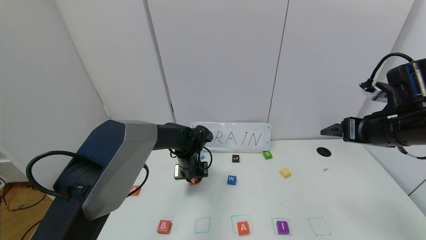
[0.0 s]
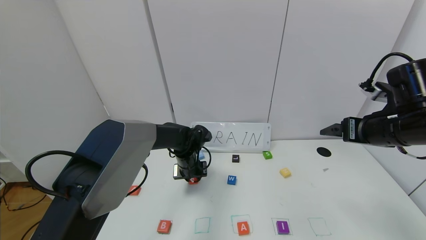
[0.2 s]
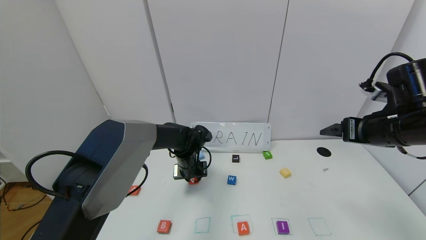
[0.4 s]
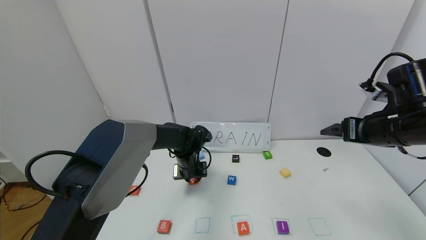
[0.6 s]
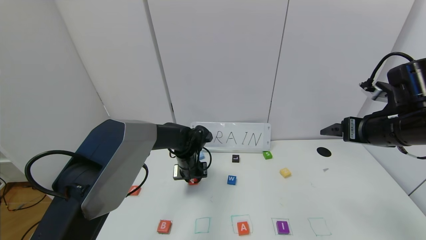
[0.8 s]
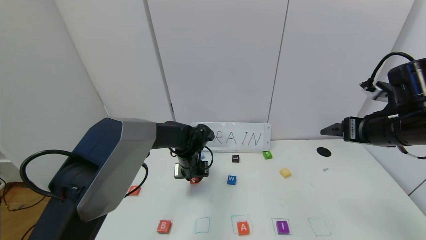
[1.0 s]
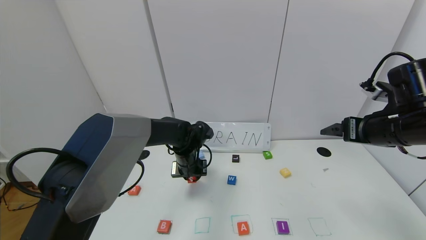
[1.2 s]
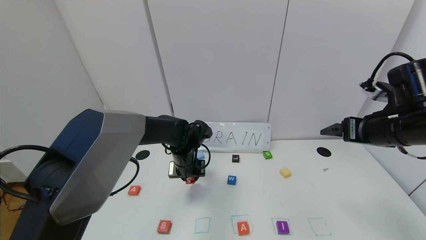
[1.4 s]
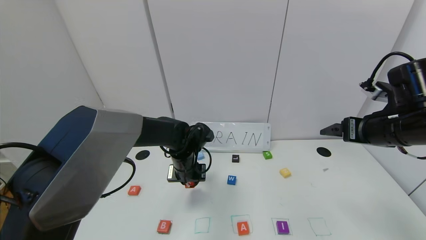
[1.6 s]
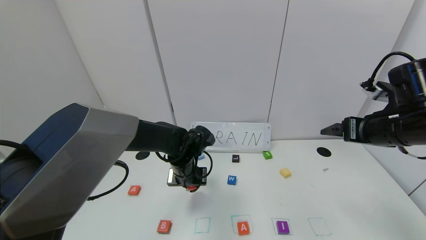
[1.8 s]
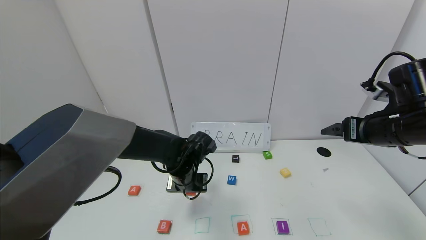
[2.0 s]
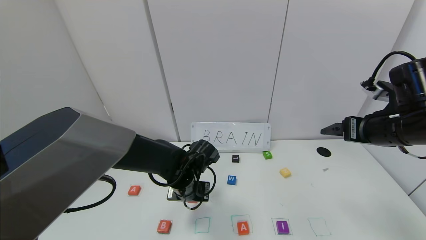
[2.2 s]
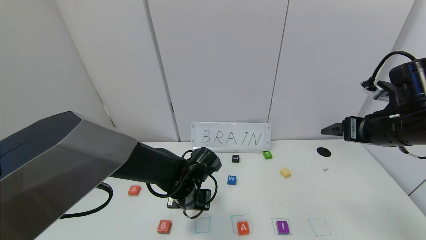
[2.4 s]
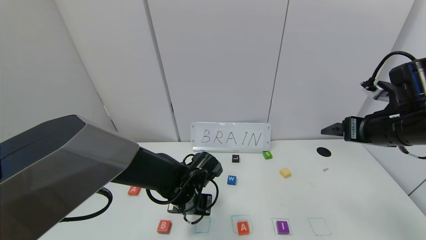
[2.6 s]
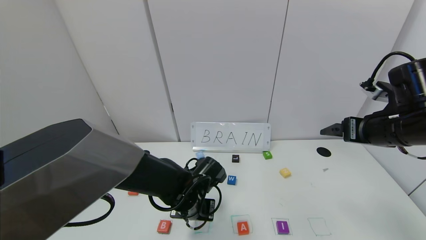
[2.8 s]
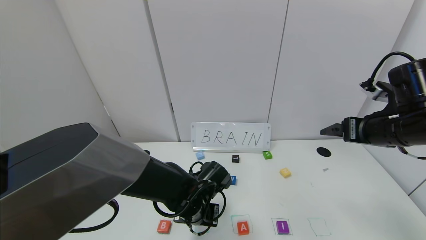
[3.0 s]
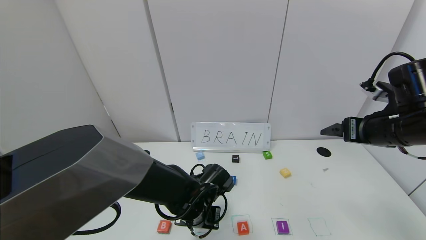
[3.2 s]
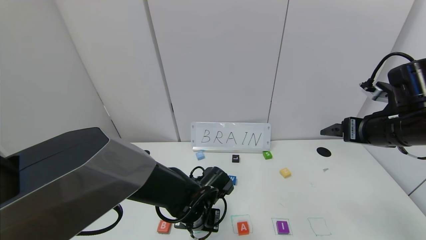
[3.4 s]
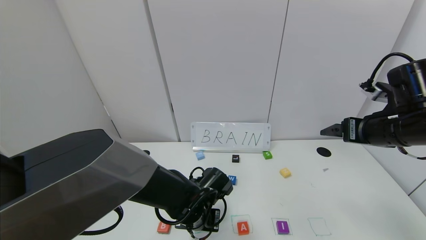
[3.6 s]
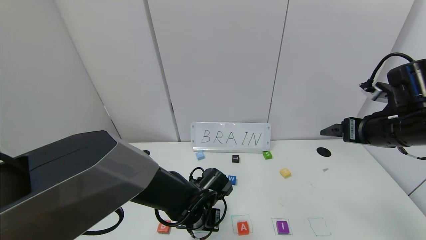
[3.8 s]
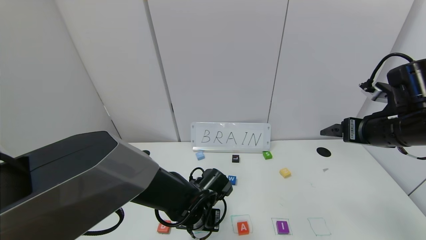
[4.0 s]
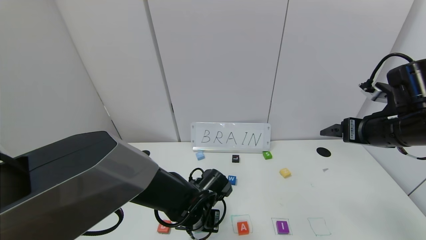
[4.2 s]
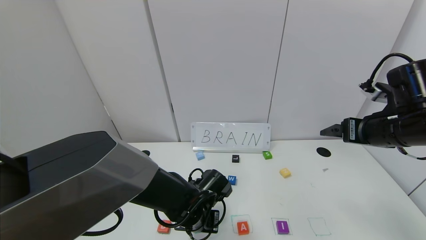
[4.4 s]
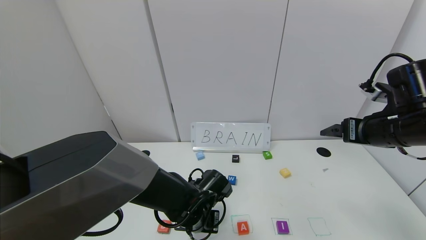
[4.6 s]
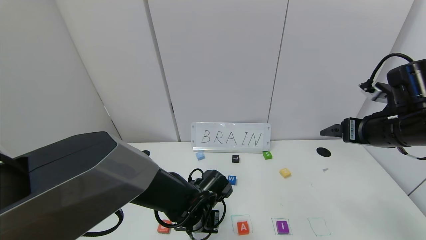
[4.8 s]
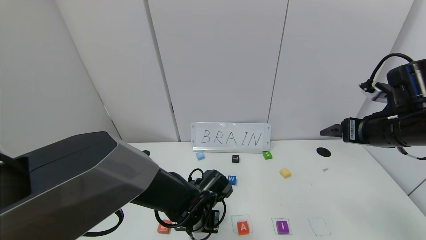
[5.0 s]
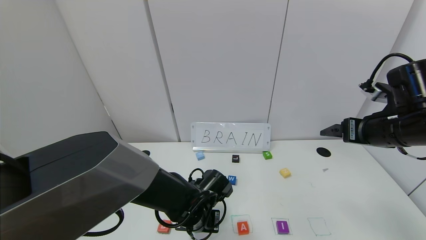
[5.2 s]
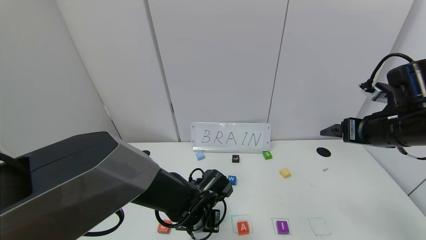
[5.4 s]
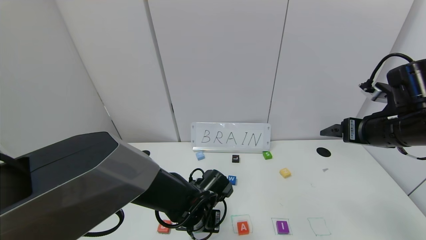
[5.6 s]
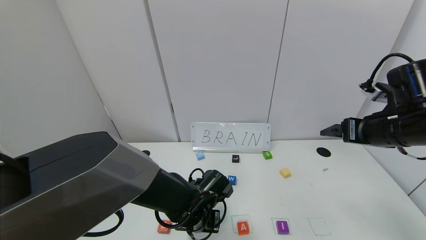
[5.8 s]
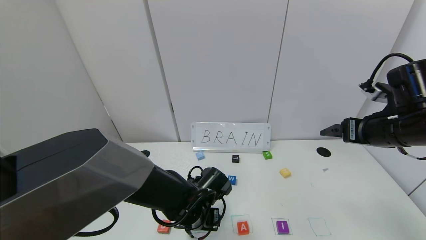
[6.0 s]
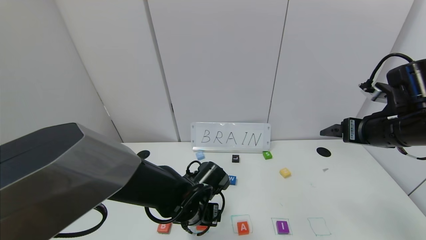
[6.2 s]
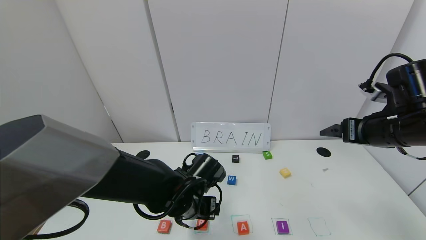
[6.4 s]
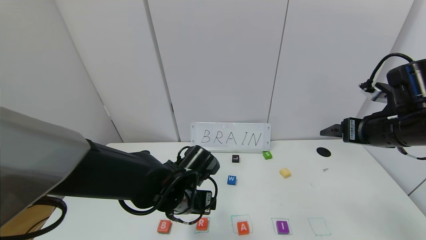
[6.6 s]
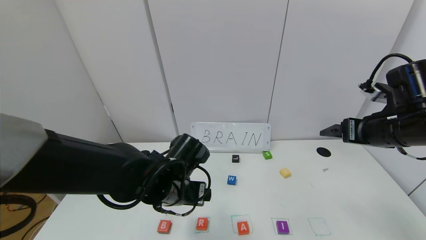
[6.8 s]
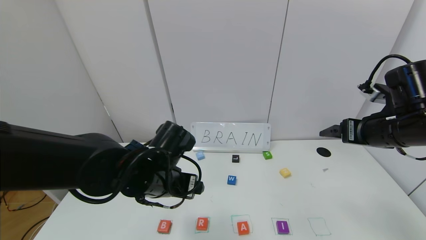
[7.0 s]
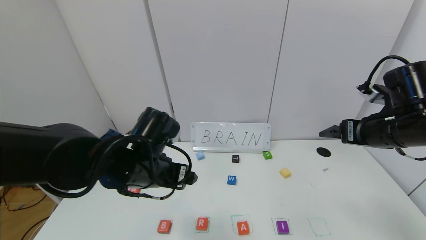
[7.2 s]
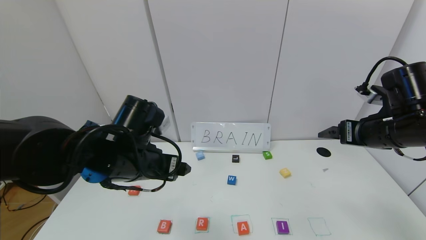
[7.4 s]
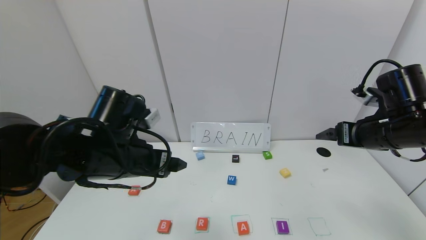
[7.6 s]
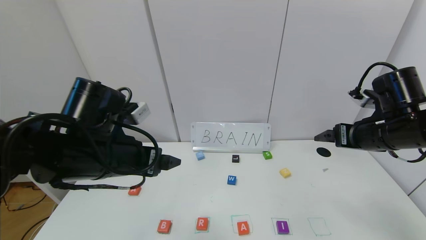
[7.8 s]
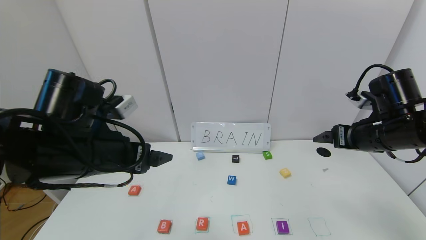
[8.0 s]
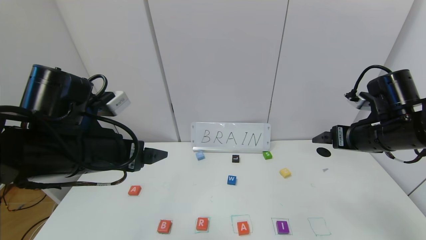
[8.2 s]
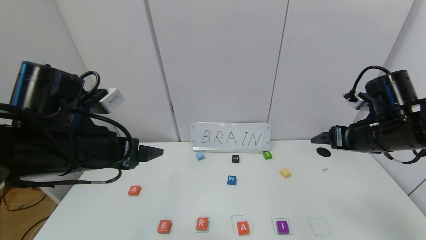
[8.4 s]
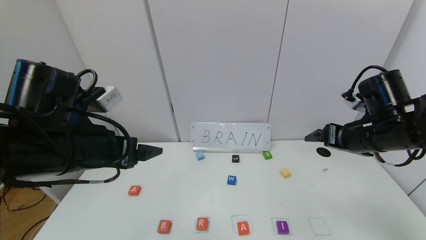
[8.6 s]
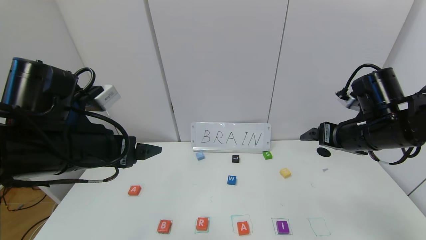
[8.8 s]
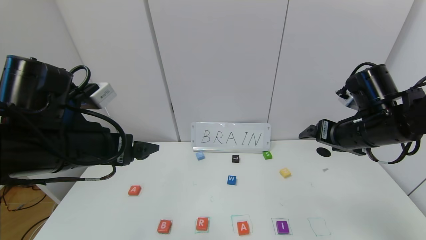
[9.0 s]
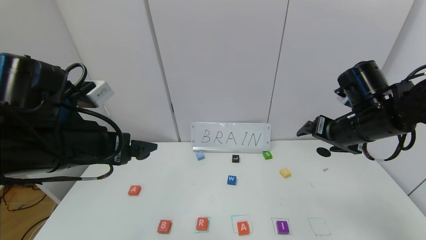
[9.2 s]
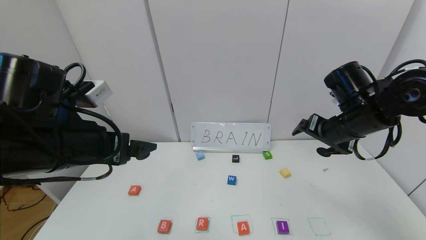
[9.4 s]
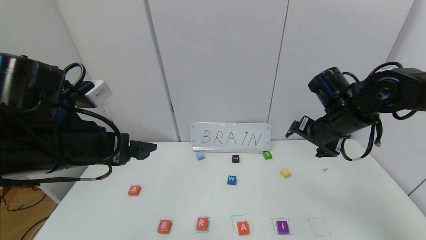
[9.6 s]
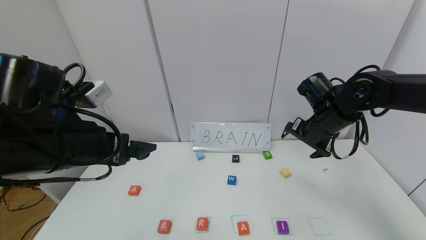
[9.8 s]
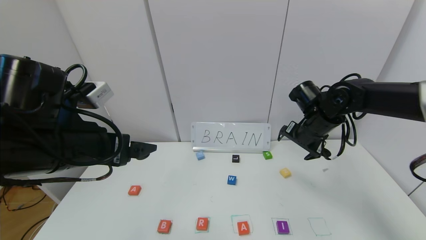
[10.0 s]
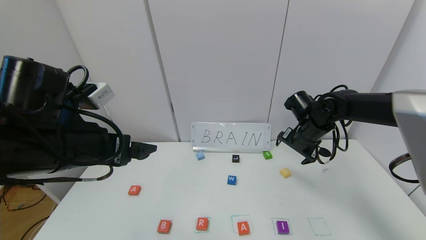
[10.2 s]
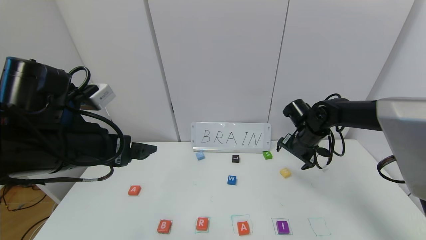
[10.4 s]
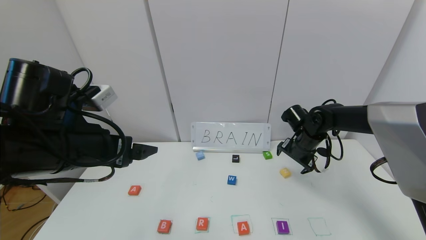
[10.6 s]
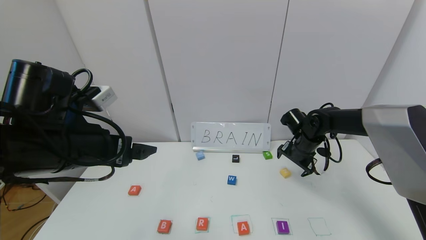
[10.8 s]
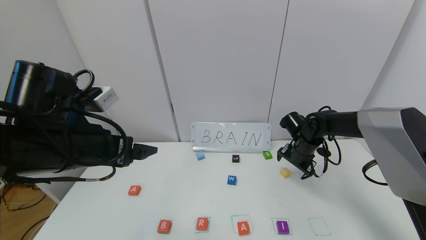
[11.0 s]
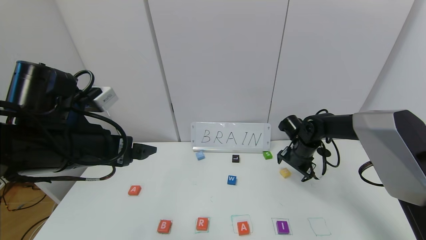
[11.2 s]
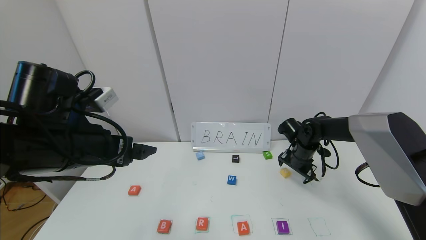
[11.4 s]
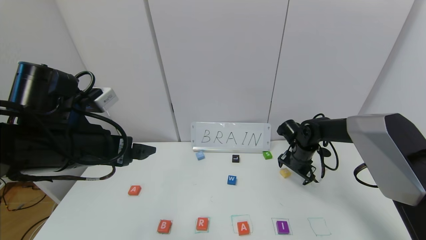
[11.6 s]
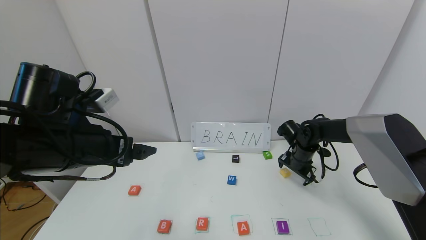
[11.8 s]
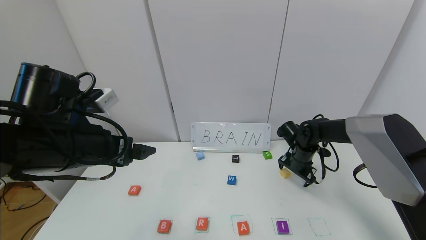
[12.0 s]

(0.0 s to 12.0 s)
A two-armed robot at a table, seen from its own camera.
Task of the whole recording: use the gripper to find blocks with the letters b, a, a, and i on the table and arrange them into BAAI, then find r and N and turn the arranged baai into brian.
Step, 0.0 s - 5.8 s: Place the block R in the second location.
0.0 s - 1.6 s: The left gripper shifts by some 5 cm.
1.6 s - 3.0 s: The left gripper travels backward by about 10 cm.
3.0 s - 4.4 s: The grippers stay close to where they were, moving slightly.
4.4 s - 6.0 s: The left gripper opens up.
6.0 s - 7.6 s: The left gripper is displaced upward and to the left by some 20 cm.
7.6 s - 9.0 s: The left gripper ends up roughly 5 cm from where it was.
9.0 s - 10.4 s: The right gripper moves forward and downward, approximately 15 cm.
10.4 s - 12.0 s: The right gripper heads downward, covering roughly 5 cm.

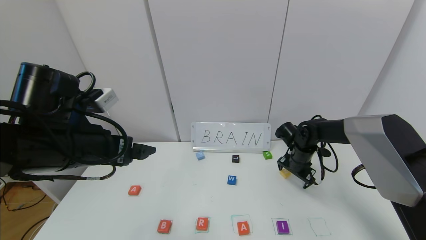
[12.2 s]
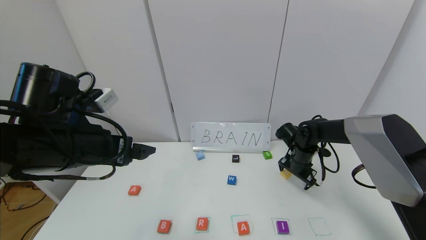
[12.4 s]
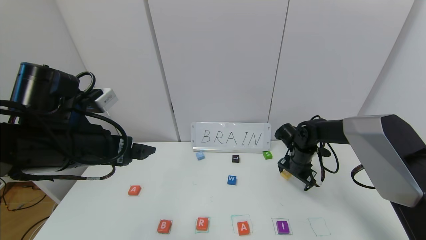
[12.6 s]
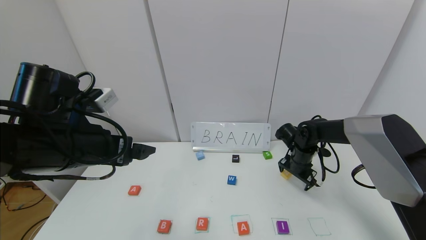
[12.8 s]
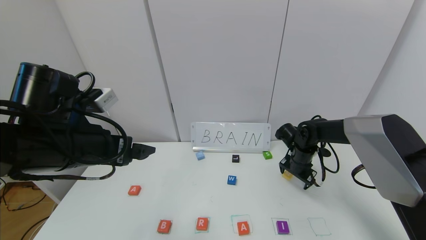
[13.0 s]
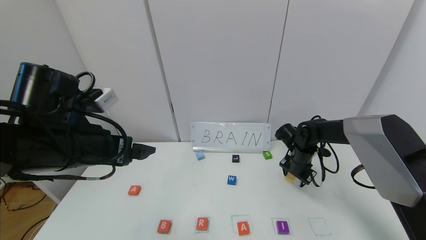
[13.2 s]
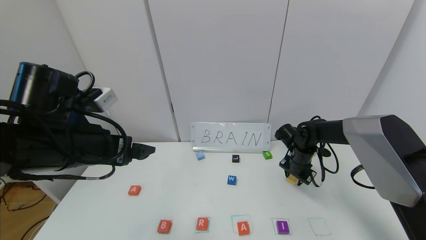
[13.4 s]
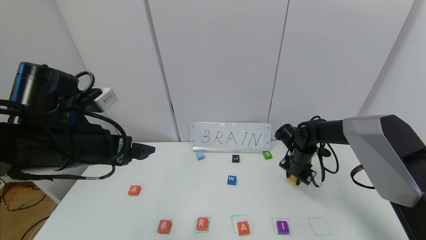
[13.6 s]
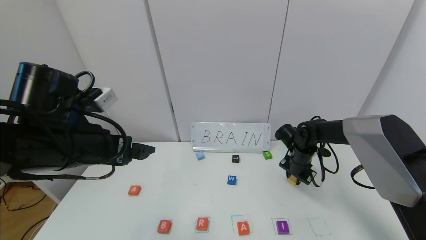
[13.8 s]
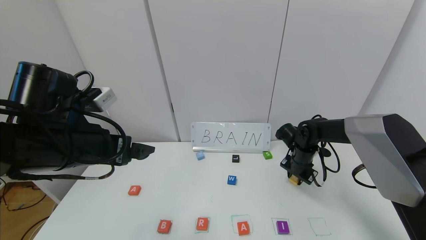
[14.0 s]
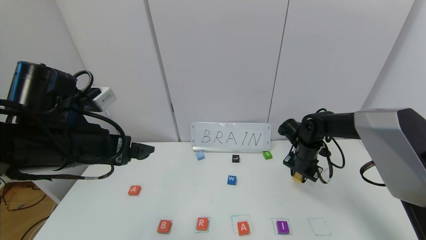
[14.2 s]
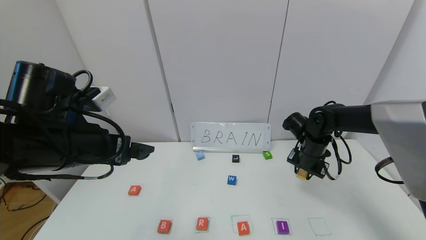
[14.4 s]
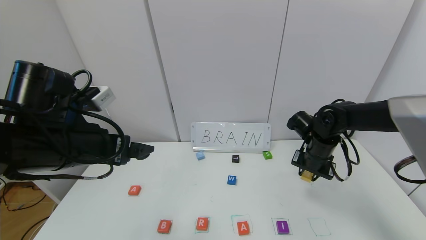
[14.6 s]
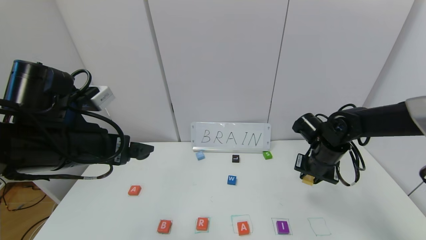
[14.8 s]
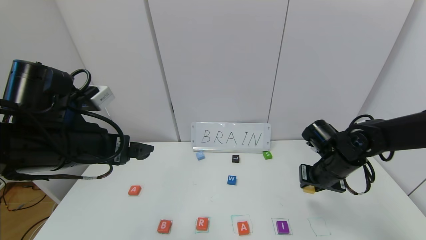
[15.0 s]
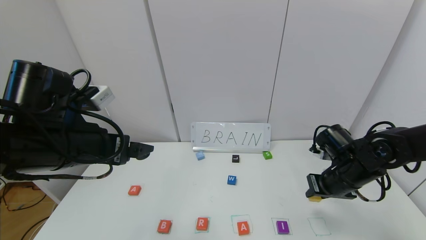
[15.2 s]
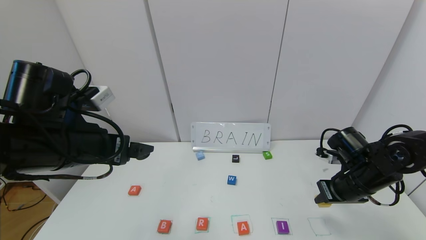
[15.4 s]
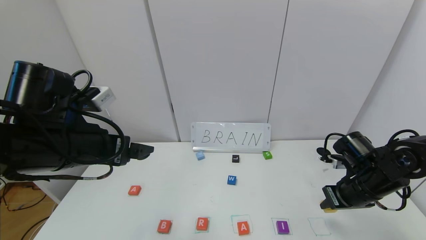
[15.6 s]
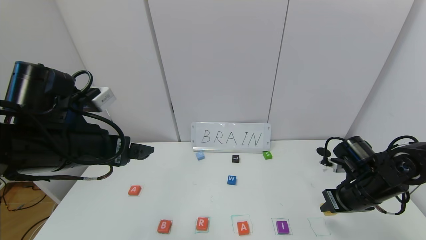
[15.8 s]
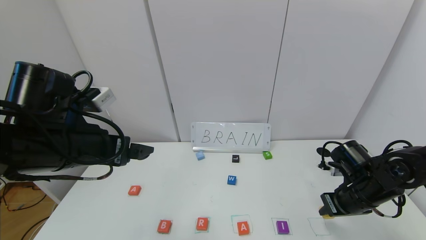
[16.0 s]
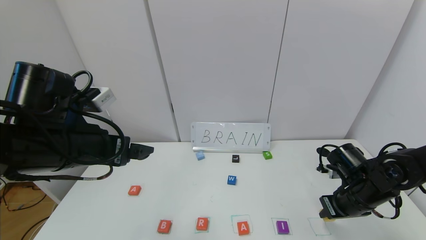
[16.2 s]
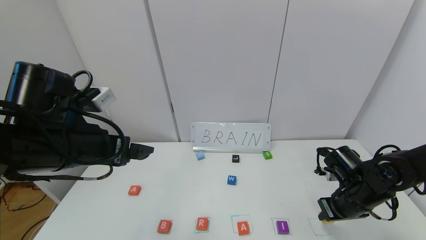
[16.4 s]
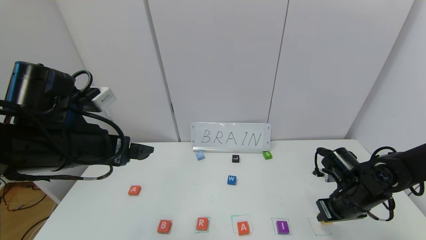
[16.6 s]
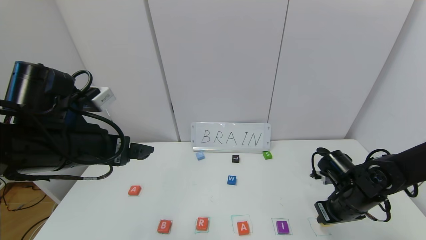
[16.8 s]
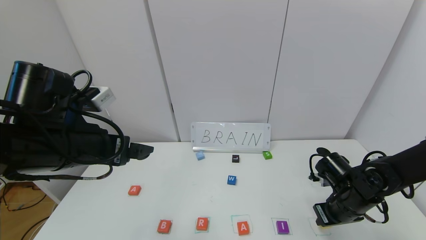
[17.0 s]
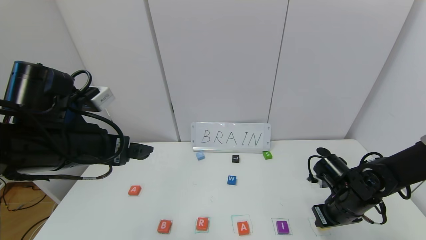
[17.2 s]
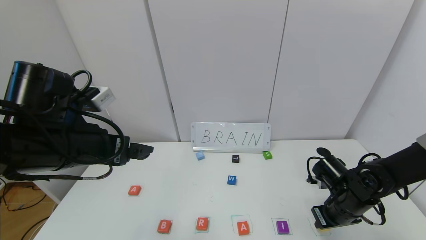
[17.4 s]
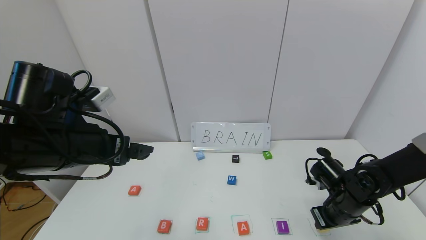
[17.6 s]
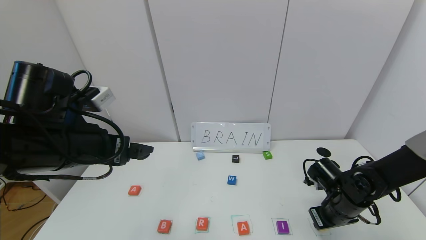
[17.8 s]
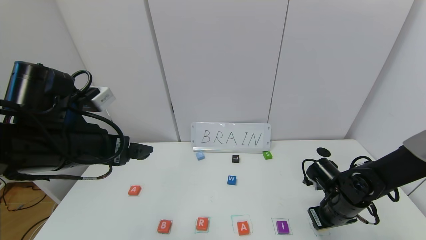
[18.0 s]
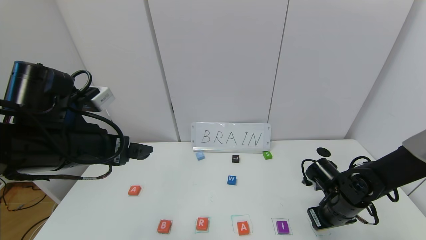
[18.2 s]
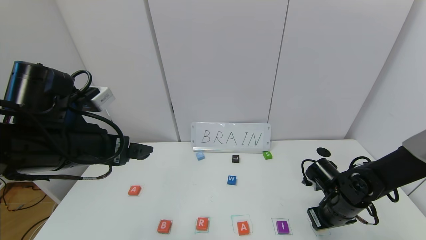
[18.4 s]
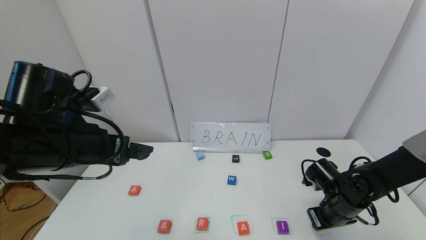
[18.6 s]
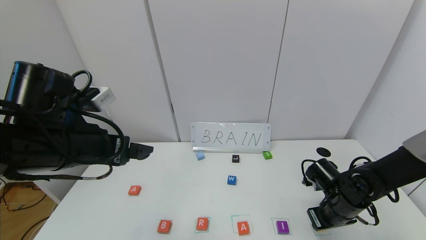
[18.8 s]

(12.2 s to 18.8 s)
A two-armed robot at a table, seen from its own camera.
Task of the whole recording: use the gripper to find blocks with the letters b, a, a, and i on the table and arrange them into BAAI, then find r and N and turn the arranged baai into brian.
12.2 s - 13.8 s: The right gripper closes up.
13.8 s - 15.4 s: The right gripper heads backward, upward and to the right, covering approximately 15 cm.
15.4 s - 17.2 s: The right gripper is displaced downward by roughly 5 cm.
17.2 s - 18.8 s: The grippers move only a little.
